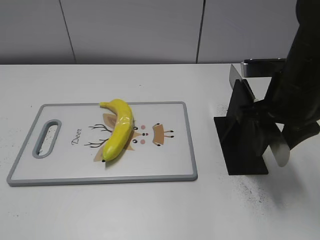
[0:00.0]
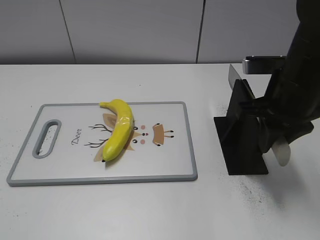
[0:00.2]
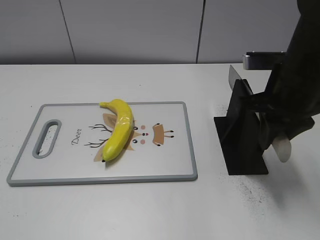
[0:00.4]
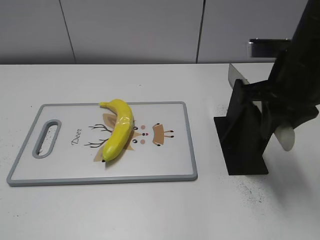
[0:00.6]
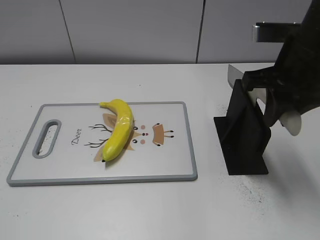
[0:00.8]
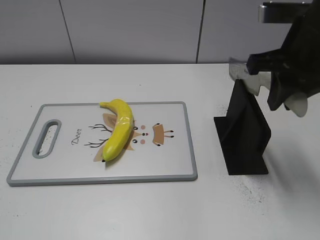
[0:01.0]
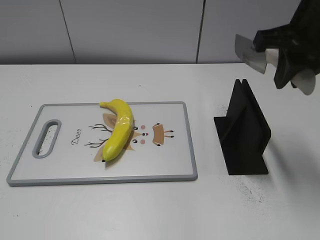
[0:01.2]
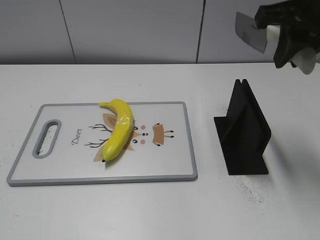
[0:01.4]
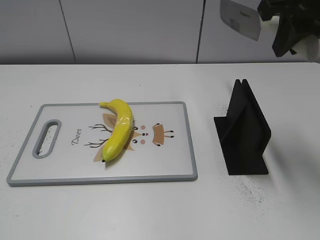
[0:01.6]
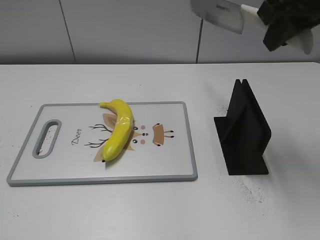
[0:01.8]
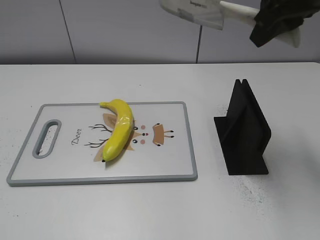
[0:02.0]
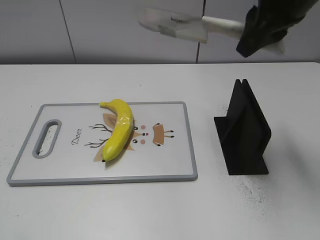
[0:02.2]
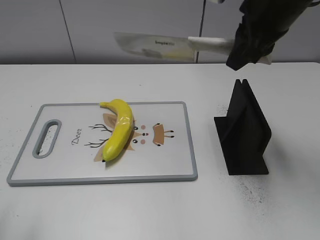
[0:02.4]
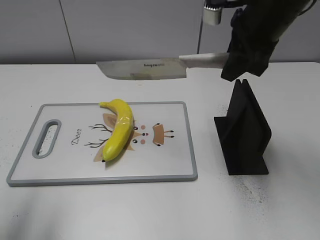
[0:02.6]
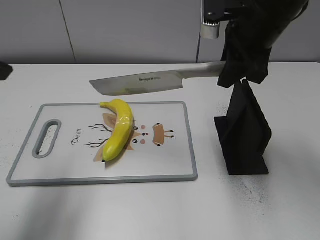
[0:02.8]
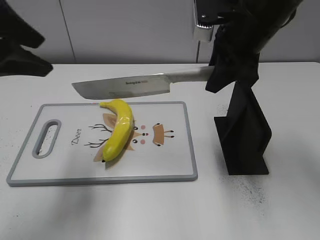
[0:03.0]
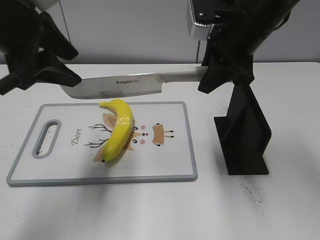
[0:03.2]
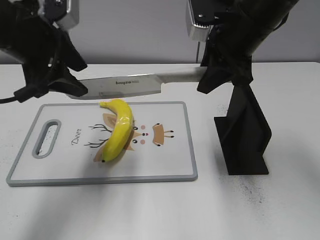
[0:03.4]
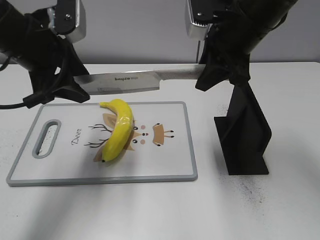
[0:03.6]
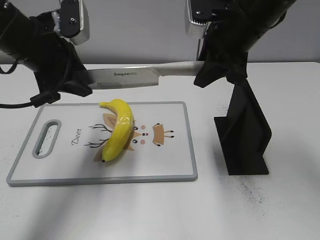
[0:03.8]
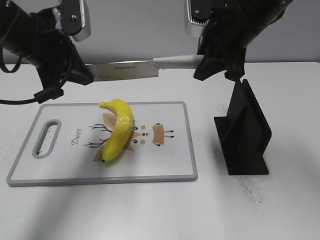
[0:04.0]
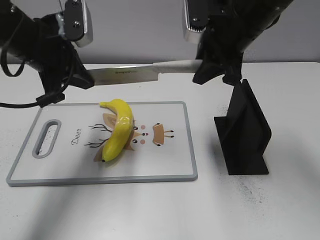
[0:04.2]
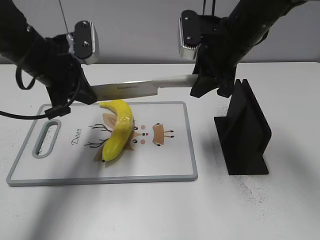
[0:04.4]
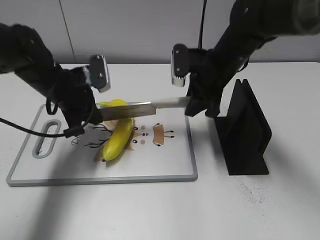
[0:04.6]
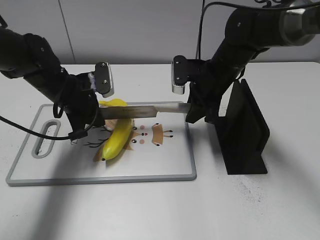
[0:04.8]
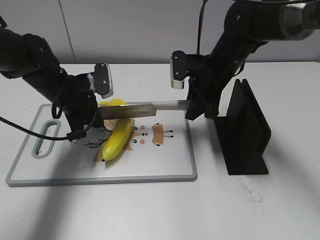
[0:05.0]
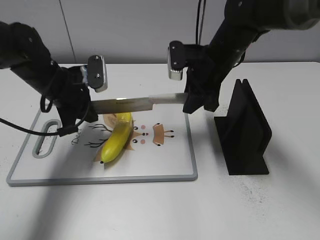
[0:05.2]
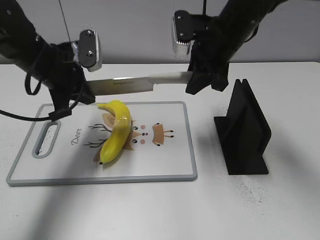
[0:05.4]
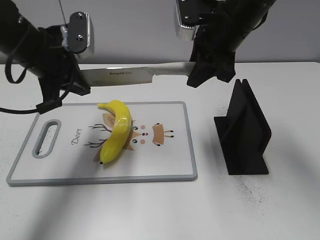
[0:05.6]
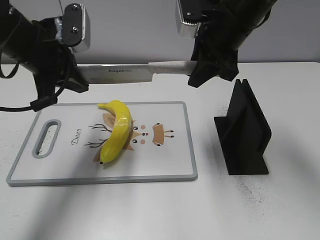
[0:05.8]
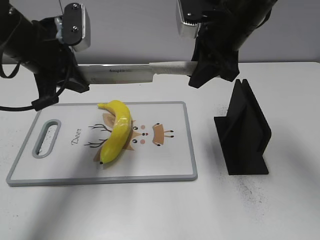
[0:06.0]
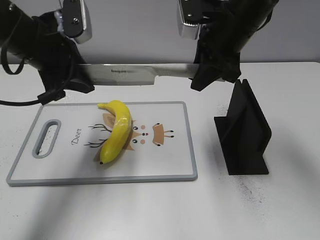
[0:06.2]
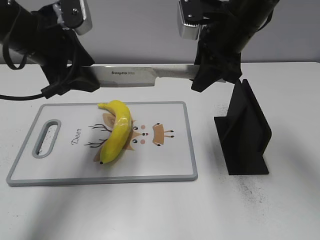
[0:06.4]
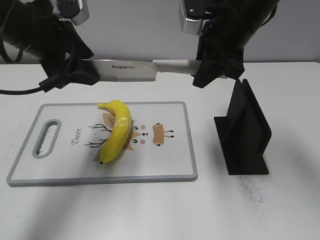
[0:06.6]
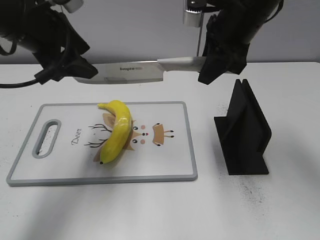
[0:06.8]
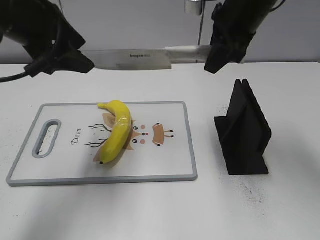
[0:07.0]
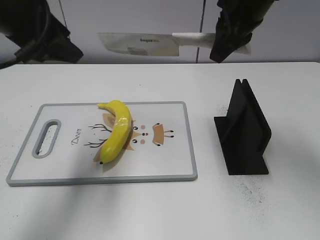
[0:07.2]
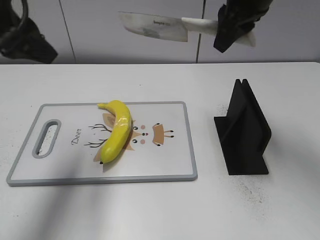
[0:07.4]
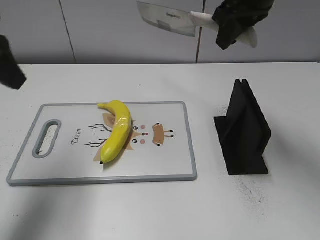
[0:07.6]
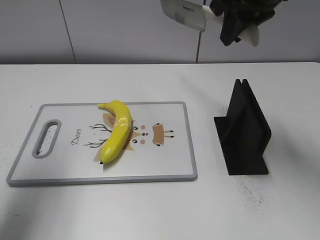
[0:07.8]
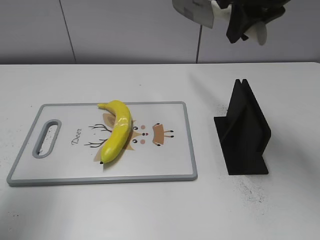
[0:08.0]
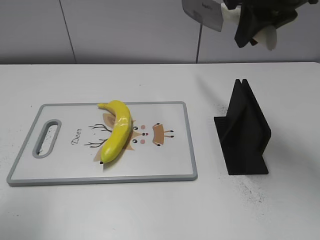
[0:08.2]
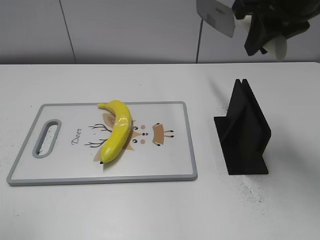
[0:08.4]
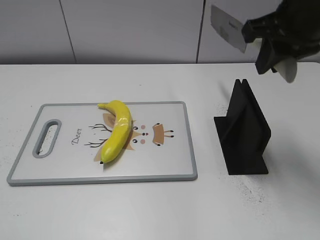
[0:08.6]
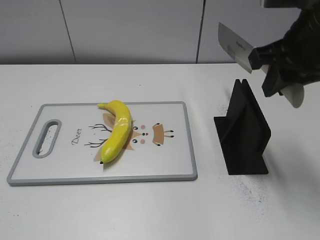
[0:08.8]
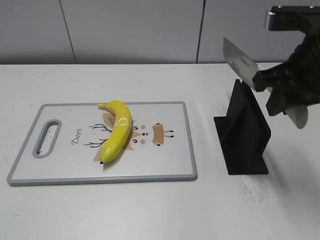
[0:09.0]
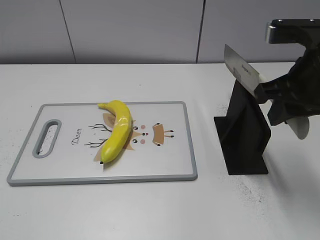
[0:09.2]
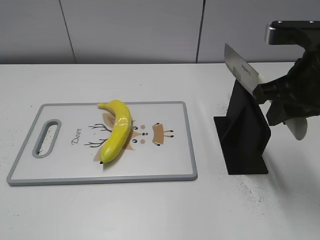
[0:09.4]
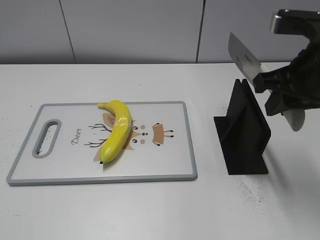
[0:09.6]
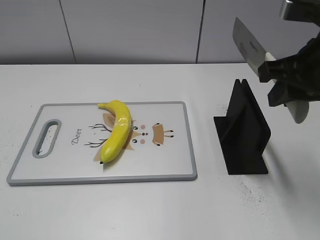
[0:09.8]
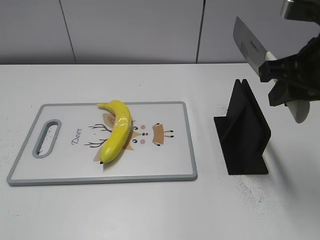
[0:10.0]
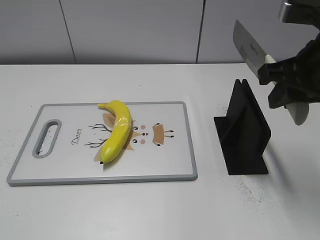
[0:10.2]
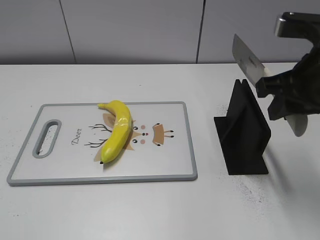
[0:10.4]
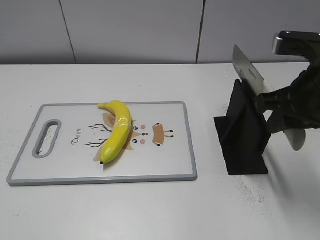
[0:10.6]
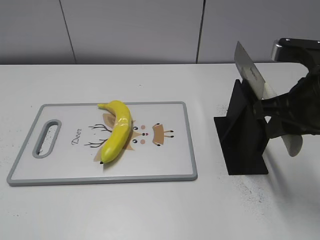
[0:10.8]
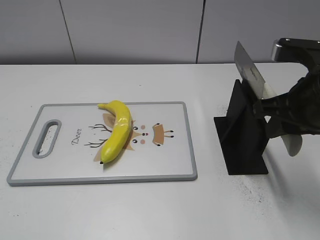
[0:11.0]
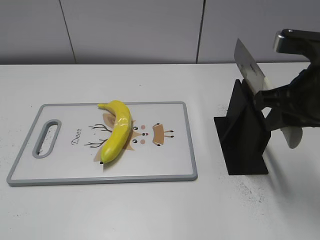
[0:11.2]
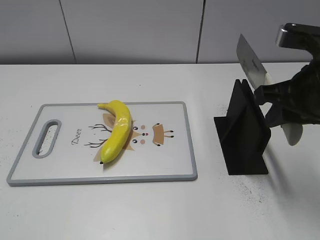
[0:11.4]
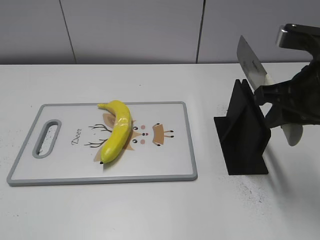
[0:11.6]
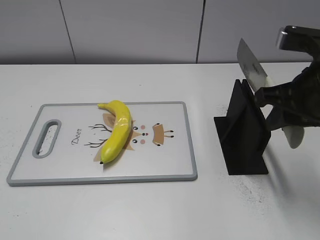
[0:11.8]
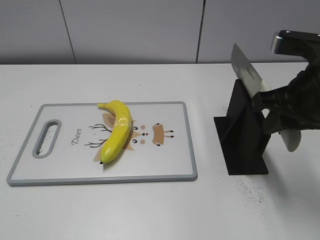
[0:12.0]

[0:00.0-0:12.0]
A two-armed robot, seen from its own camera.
Task of the whole recording: cut plastic banana.
Step, 0:01.6 to 0:06.2: Lift the knife with your right hand.
Step, 0:06.4 to 0:07.2: Cut the banana with your right hand.
Step, 0:07.4 to 0:08.8: Lift the knife with your right hand.
0:00.0 to 0:01.6: The right gripper moves upward, approximately 15 cm, and closes.
0:01.6 to 0:03.0: The left gripper goes about 25 cm forward. Meanwhile the right gripper is displaced downward and to the left by approximately 10 cm.
0:03.0 to 0:04.4: The left gripper goes roughly 15 cm downward and forward, and closes; the right gripper shifts by some 5 cm.
0:04.4 to 0:06.0: The left gripper reaches roughly 10 cm downward, then returns. The right gripper goes downward and returns, some 10 cm each way.
0:06.0 to 0:07.6: The left gripper moves upward, backward and to the left, some 10 cm, and opens its fingers, while the right gripper travels upward by about 5 cm.
0:07.6 to 0:09.0: The left gripper travels backward by some 25 cm. The right gripper moves backward, to the right and downward, roughly 15 cm.
0:09.0 to 0:12.0: The grippers make only small movements.

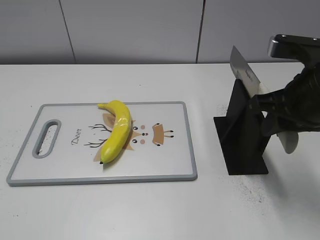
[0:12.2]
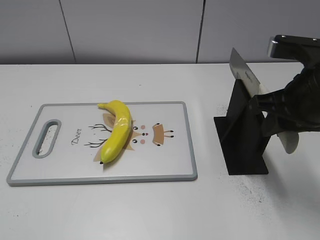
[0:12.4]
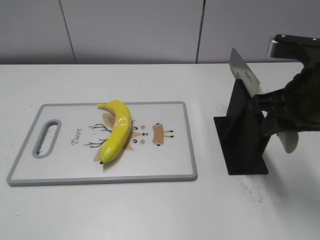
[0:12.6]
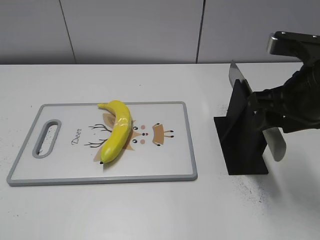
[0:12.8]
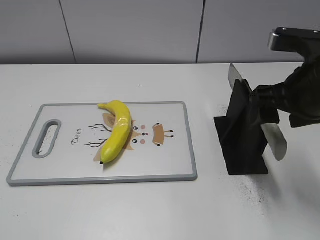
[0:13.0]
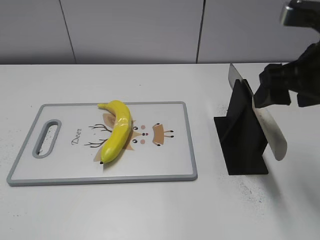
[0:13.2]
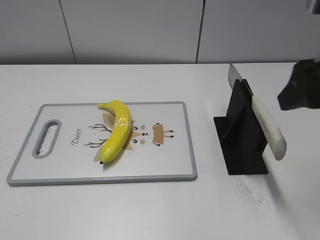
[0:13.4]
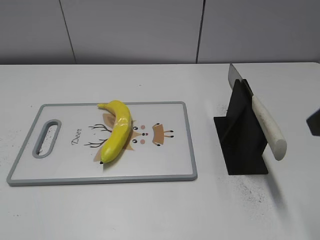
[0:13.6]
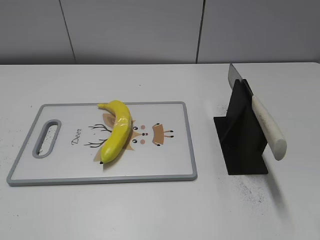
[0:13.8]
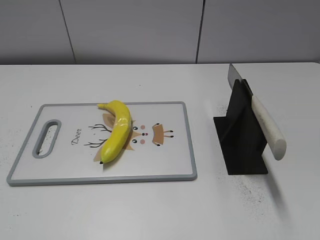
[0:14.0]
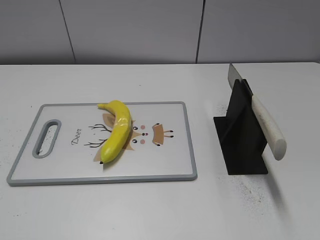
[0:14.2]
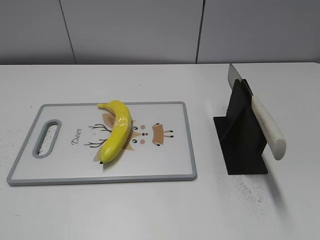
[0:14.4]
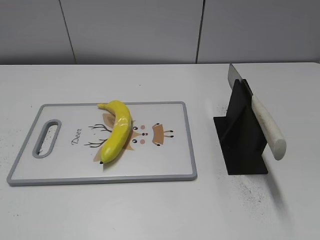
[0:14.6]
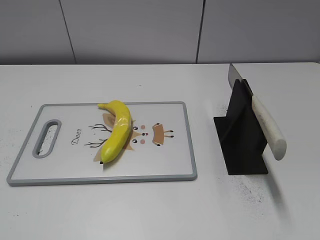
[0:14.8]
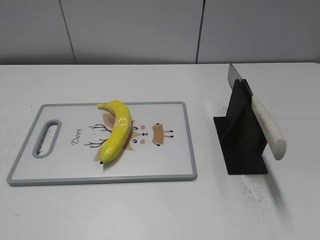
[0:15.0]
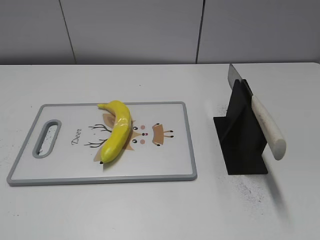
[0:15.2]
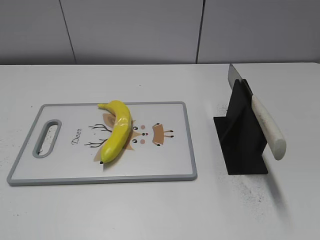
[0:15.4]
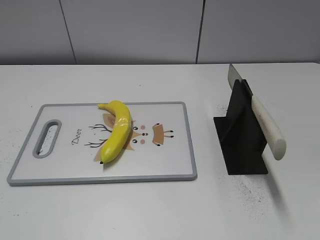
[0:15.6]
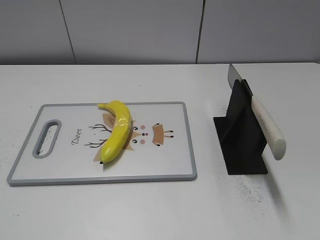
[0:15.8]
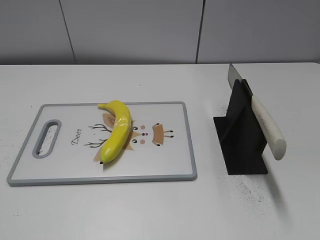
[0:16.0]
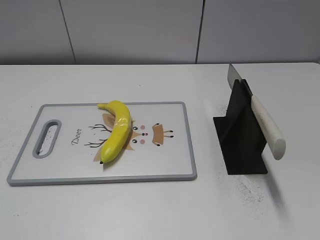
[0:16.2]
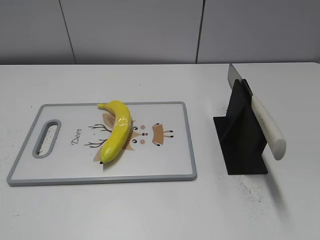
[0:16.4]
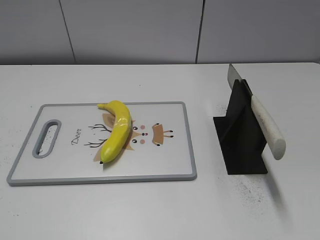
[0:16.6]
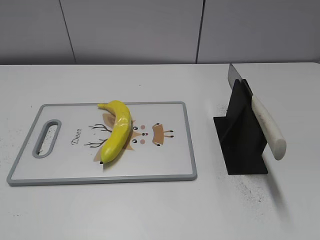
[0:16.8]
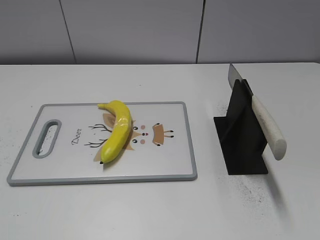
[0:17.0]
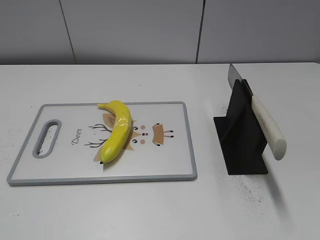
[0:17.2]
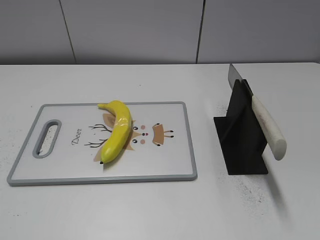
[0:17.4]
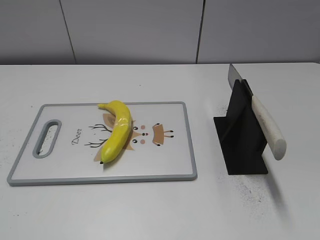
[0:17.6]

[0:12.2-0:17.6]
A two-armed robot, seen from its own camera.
Task of the whole recording: cut plastic banana.
Step, 0:12.2 to 0:17.4: Place the knife on the storage rack with your right hand.
0:12.2 to 0:13.6: The right gripper shifts approximately 10 cm upward and backward, and opens.
